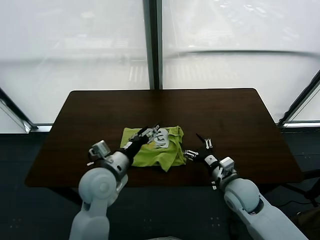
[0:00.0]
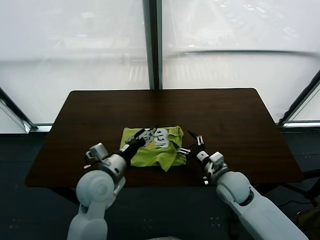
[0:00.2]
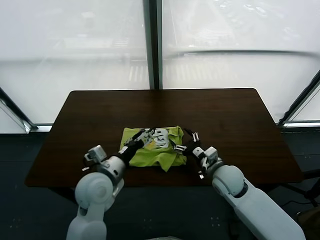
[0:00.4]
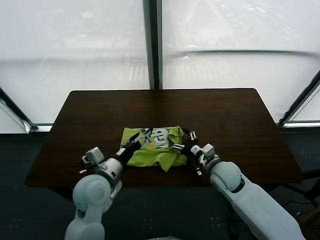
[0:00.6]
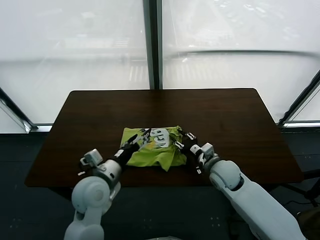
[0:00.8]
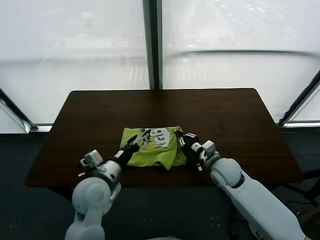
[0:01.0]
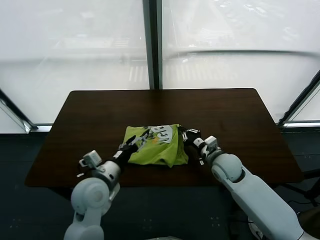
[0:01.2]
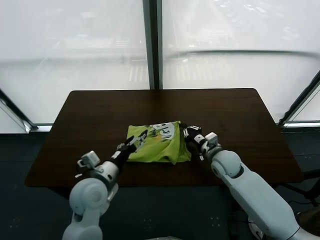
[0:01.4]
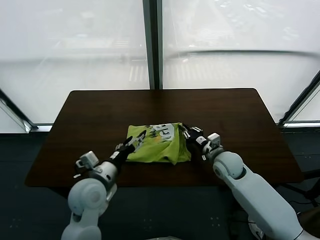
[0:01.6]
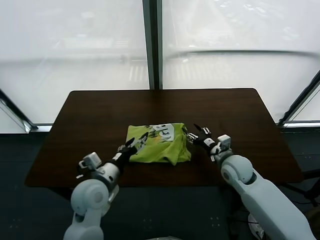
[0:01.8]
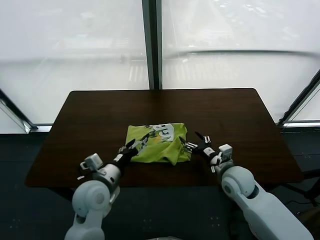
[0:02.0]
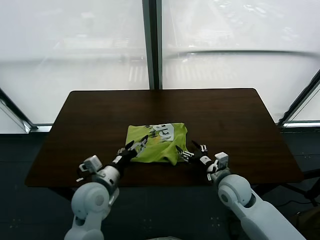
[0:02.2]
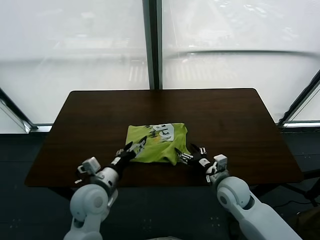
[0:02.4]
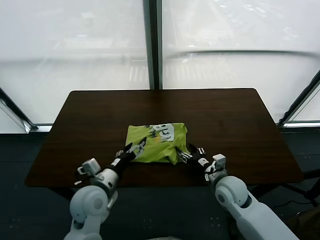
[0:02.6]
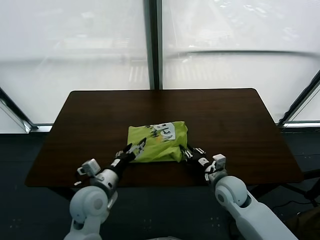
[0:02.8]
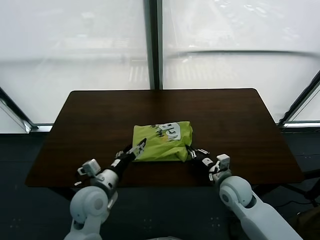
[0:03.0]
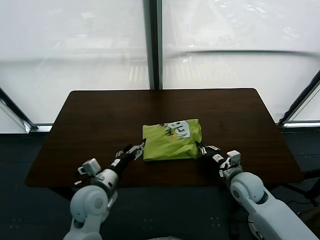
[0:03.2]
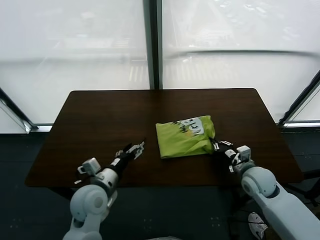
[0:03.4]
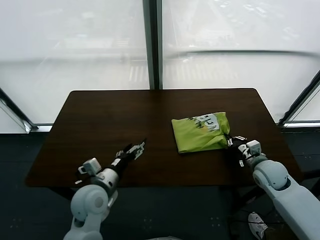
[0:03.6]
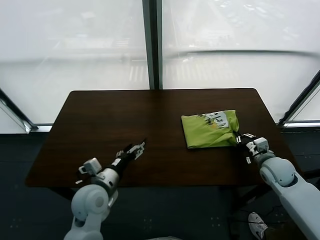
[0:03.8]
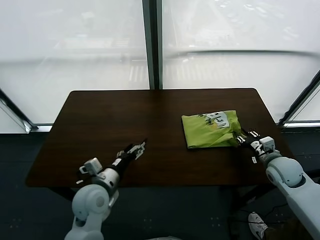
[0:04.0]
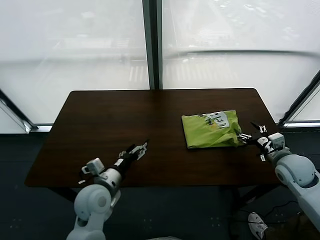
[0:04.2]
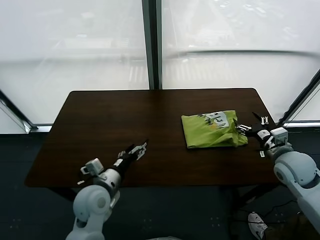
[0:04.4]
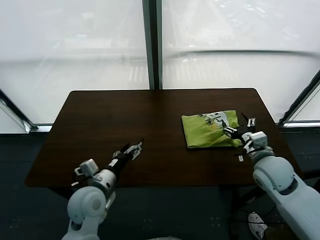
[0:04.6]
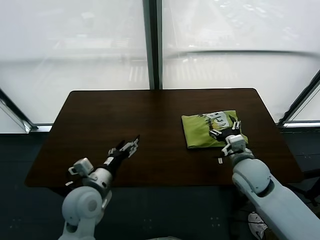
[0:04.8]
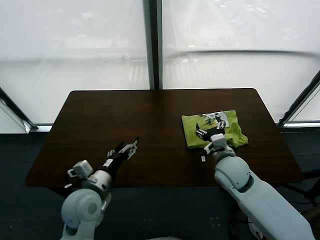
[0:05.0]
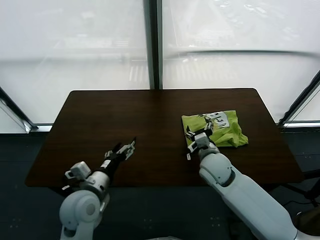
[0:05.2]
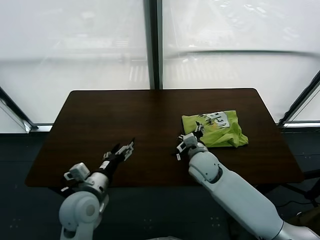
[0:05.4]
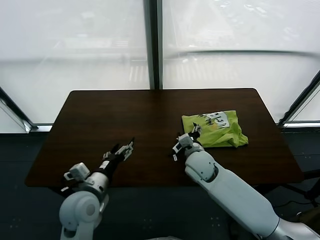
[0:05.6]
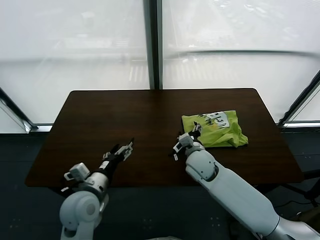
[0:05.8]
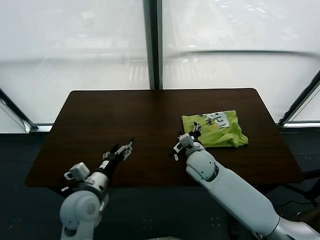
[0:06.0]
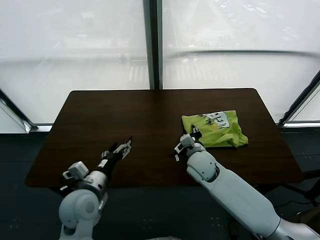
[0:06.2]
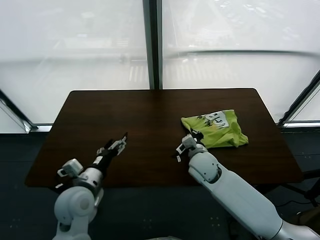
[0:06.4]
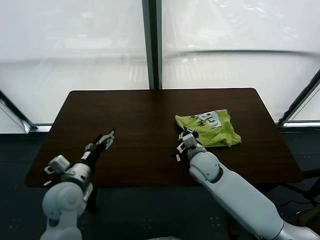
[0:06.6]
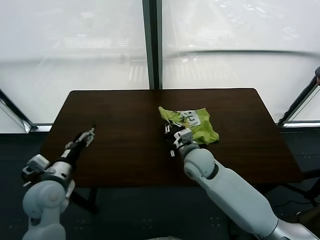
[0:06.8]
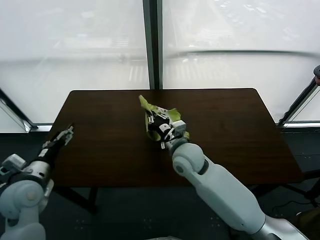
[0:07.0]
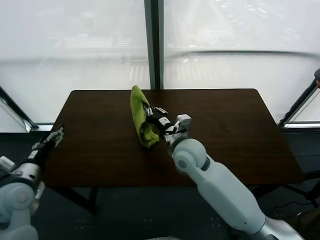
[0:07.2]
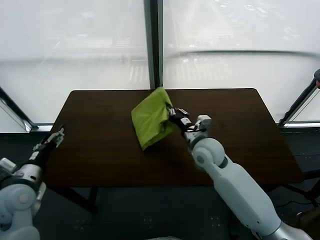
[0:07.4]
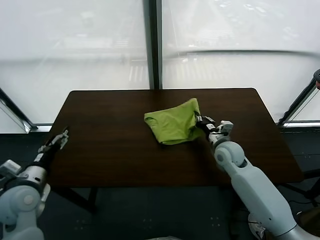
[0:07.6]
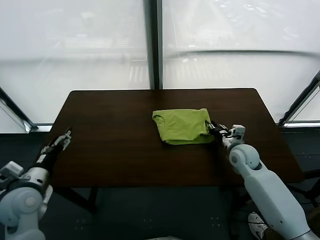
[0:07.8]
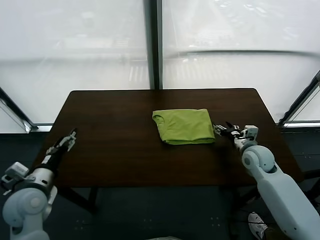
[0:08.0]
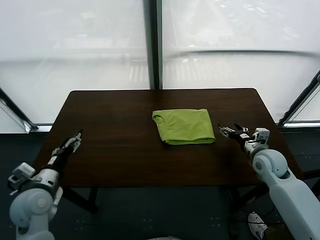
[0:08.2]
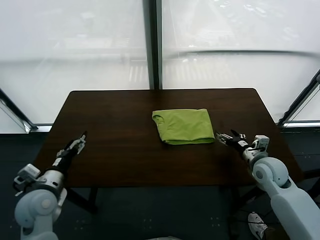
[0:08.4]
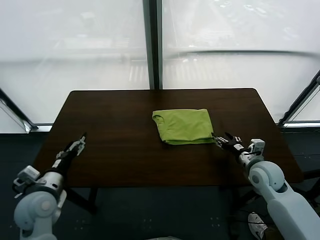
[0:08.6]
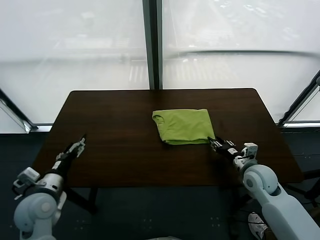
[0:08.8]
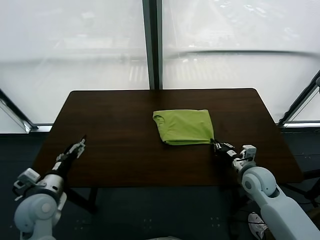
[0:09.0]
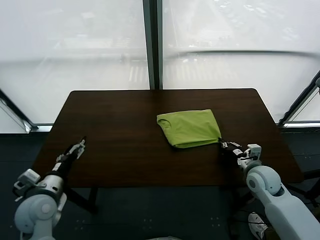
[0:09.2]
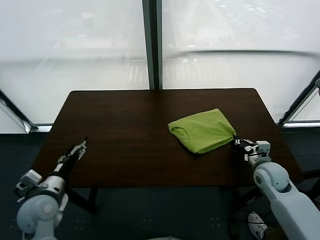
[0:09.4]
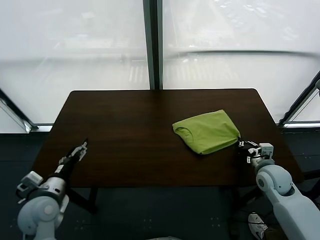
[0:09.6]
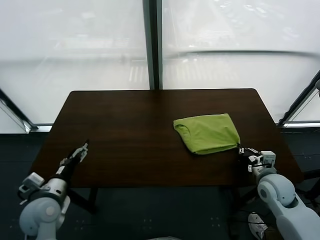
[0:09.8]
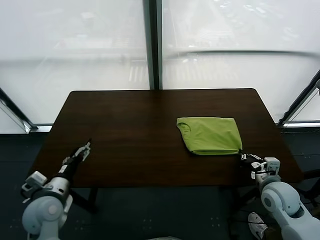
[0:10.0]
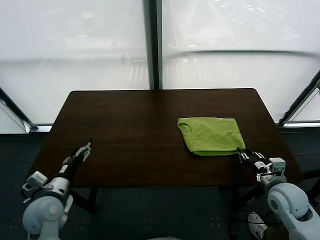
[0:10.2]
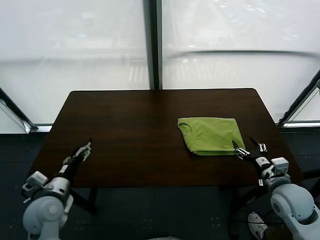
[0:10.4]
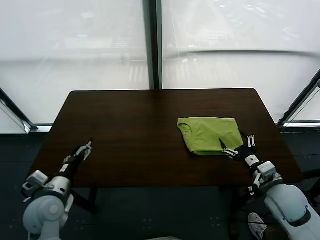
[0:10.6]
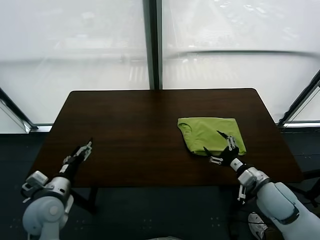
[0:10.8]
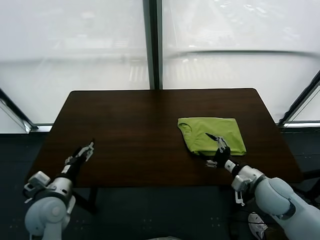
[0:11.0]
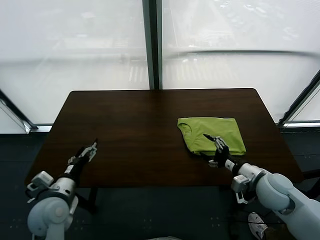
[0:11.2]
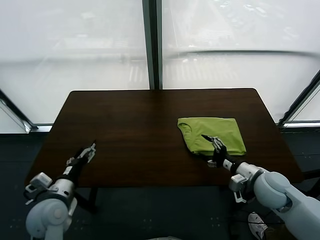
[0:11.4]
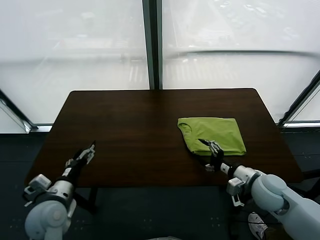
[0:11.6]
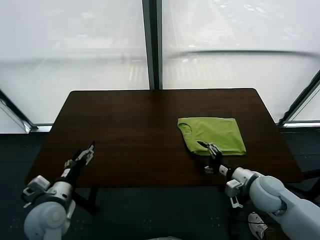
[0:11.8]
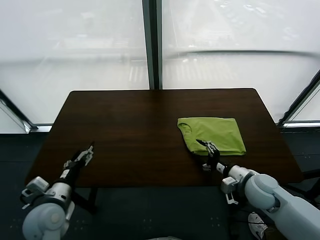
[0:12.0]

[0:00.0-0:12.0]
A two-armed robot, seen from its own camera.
Task of the whole recording: fold and organize the clothes.
Step, 0:00.0 to 0:04.0: Drag the clothes to the center of the table.
Step, 0:04.4 to 0:06.8: Flip the folded clothes over with right gripper.
Step, 0:07.0 to 0:09.2: Drag the clothes to the center of the table.
0:00.0 to 0:01.6: The right gripper travels forward by some 5 cm, and closes.
0:01.6 to 0:03.0: The right gripper is displaced backward by some 5 cm, and closes.
0:03.0 to 0:04.4: The right gripper heads upward and to the right, covering some 15 cm, and opens up.
0:04.4 to 0:06.0: The right gripper goes some 20 cm to the left.
0:06.0 to 0:07.6: The left gripper goes some 15 cm to the left. The right gripper is displaced to the right by some 15 cm, and closes its fingers.
0:07.6 to 0:09.0: The right gripper travels backward and to the right by some 10 cm, and opens and closes again.
0:09.0 to 0:10.4: The right gripper heads backward and upward, covering roughly 10 cm, and opens.
0:10.4 to 0:12.0: The right gripper shifts about 5 cm to the left.

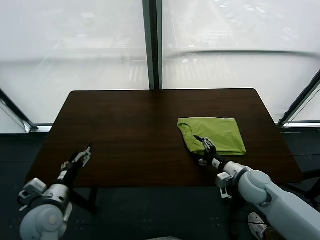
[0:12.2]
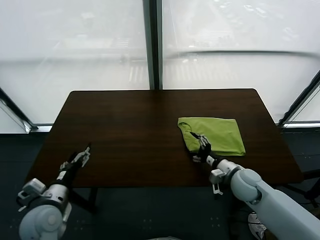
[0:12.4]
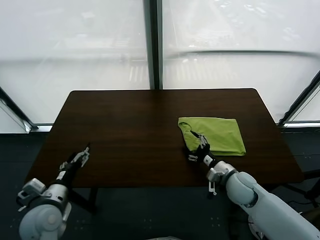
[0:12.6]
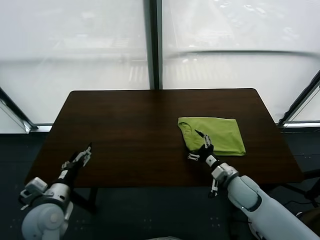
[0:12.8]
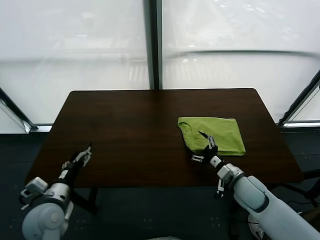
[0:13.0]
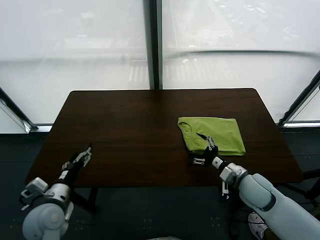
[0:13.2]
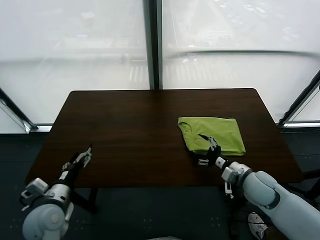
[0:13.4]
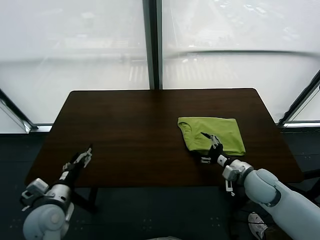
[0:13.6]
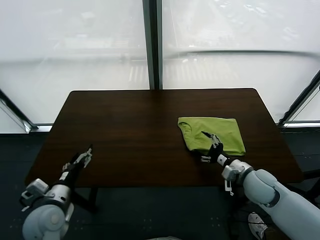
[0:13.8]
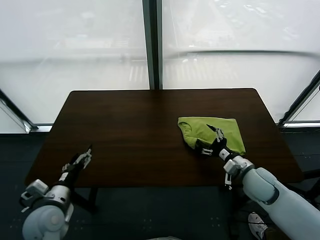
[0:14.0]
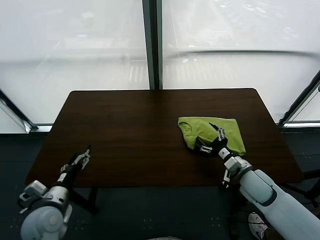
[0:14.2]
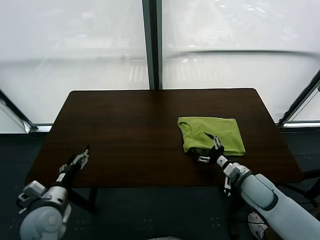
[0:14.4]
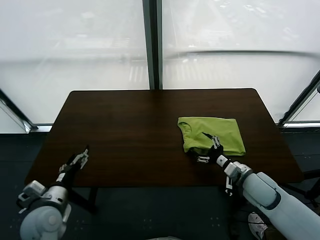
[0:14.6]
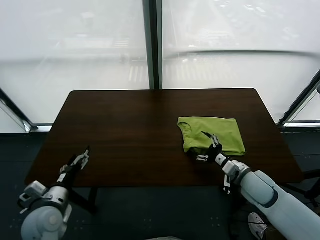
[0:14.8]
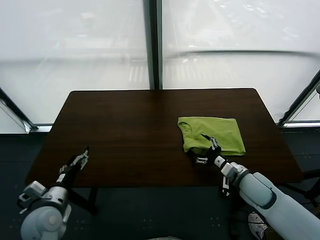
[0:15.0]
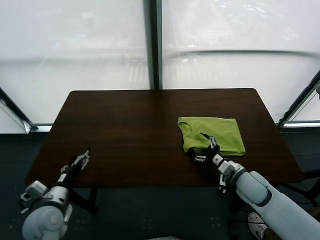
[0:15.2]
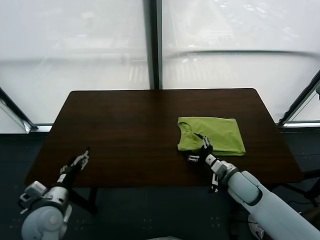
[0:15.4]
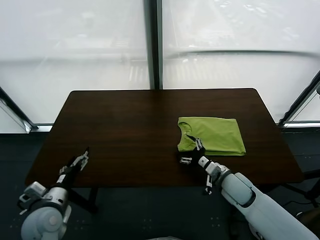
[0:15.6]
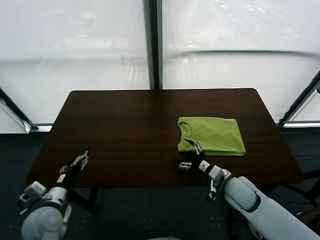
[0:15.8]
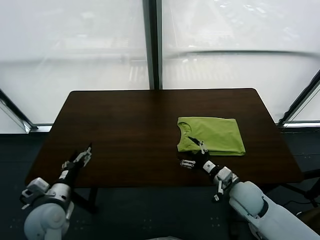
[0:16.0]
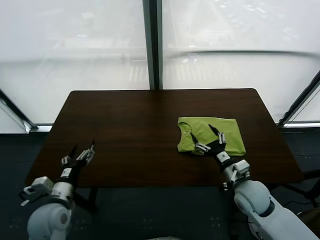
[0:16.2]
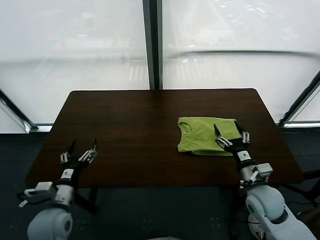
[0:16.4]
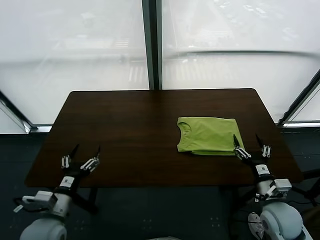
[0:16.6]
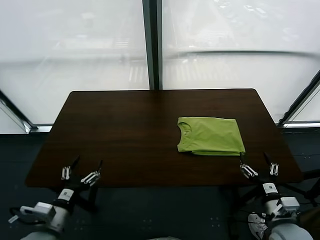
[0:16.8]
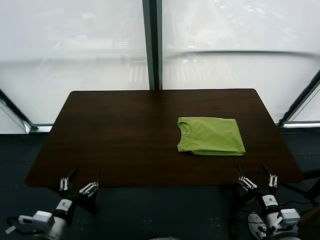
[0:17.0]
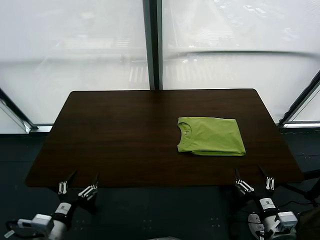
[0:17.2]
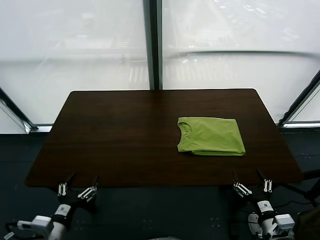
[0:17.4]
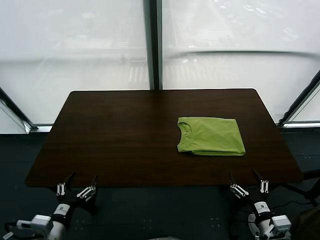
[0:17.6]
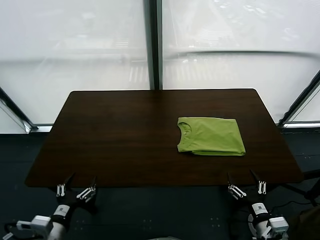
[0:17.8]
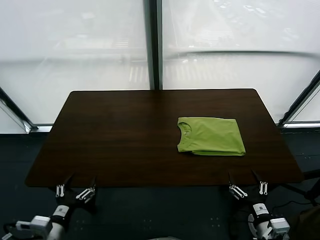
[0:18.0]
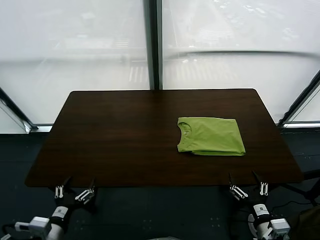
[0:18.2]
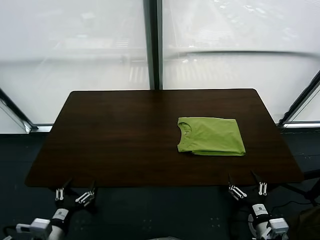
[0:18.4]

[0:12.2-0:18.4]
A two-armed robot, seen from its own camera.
Task of the whole recording: fold and organize the clothes.
0:13.8 to 0:15.4: The grippers move only a little.
0:15.4 to 0:16.8: The left gripper is displaced backward by about 5 cm, while the right gripper heads backward and to the right, covering approximately 15 cm.
0:16.8 to 0:18.4: The grippers both shift backward by about 5 cm.
